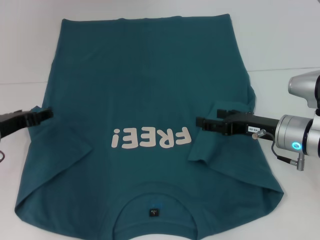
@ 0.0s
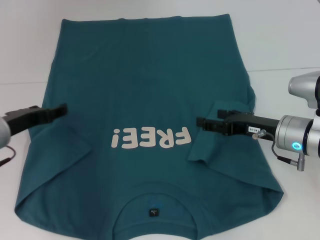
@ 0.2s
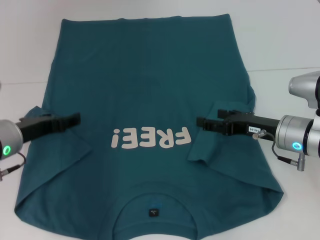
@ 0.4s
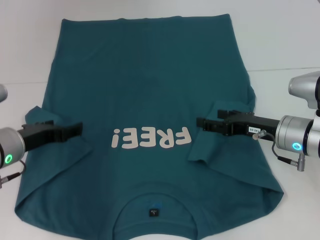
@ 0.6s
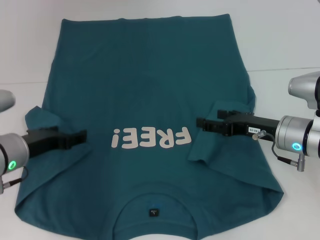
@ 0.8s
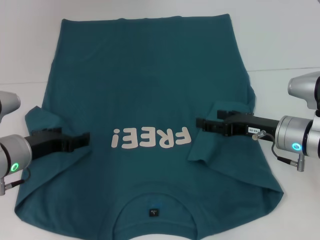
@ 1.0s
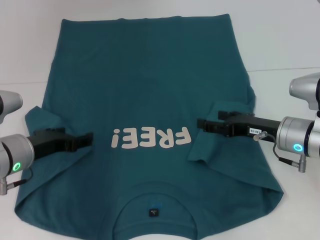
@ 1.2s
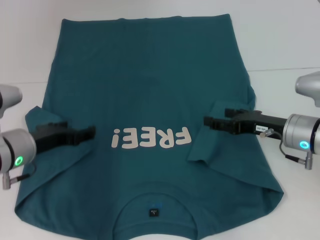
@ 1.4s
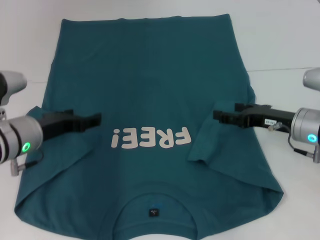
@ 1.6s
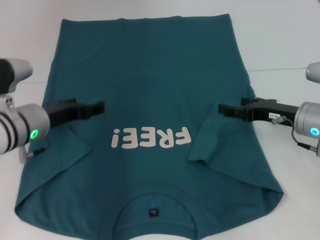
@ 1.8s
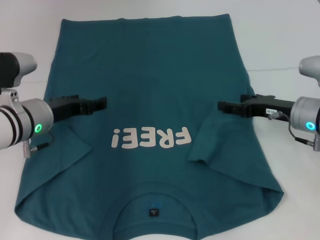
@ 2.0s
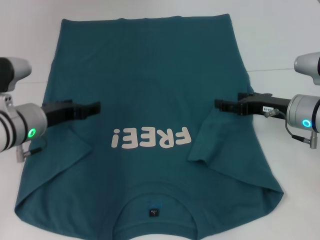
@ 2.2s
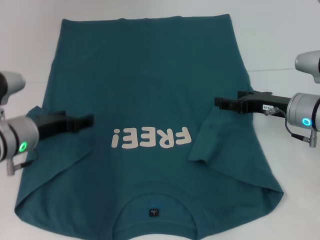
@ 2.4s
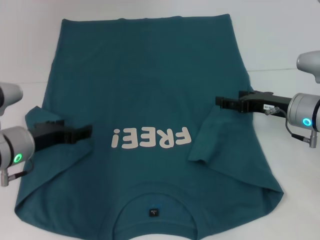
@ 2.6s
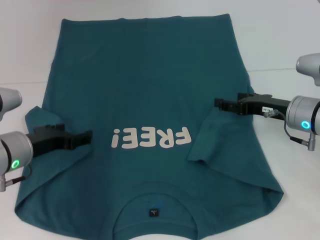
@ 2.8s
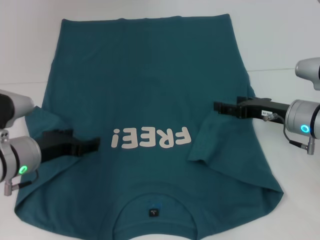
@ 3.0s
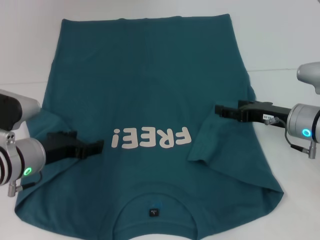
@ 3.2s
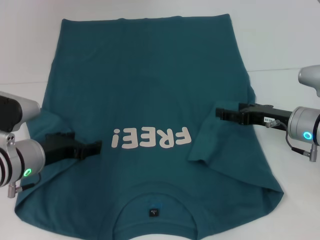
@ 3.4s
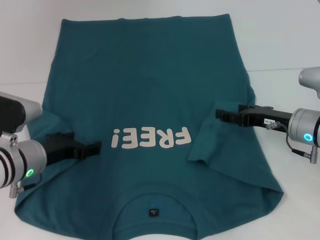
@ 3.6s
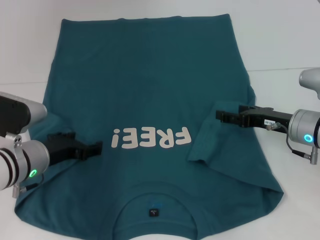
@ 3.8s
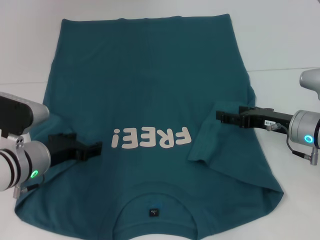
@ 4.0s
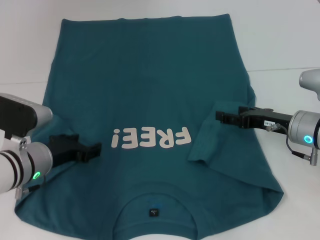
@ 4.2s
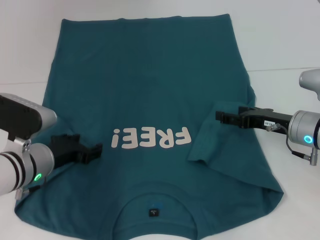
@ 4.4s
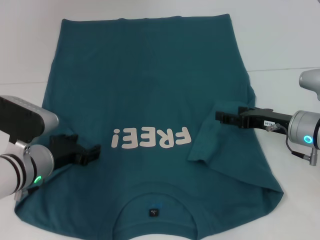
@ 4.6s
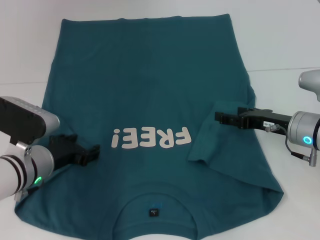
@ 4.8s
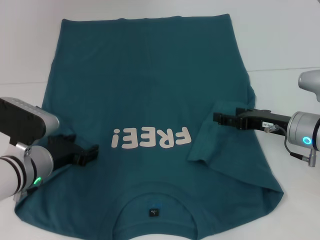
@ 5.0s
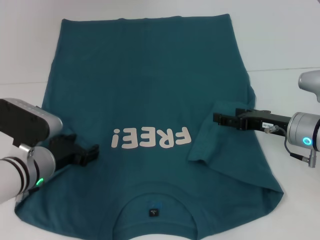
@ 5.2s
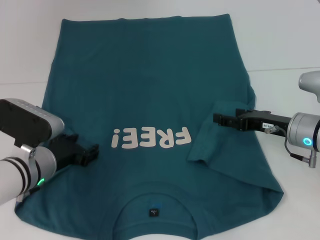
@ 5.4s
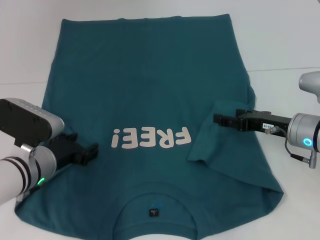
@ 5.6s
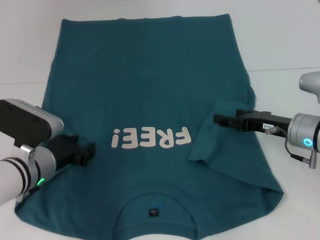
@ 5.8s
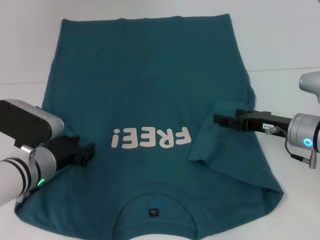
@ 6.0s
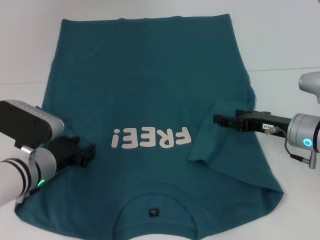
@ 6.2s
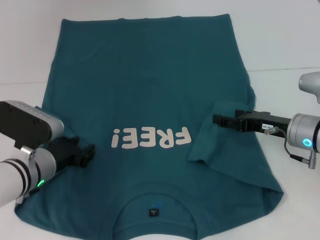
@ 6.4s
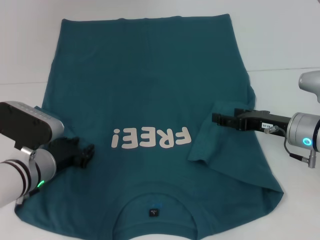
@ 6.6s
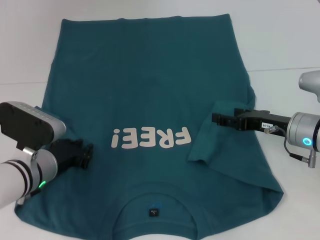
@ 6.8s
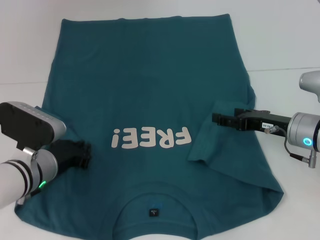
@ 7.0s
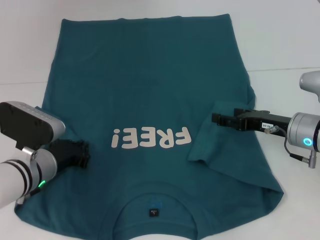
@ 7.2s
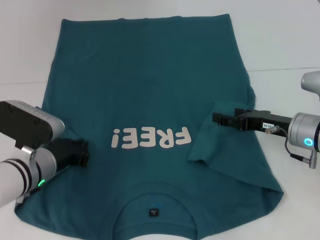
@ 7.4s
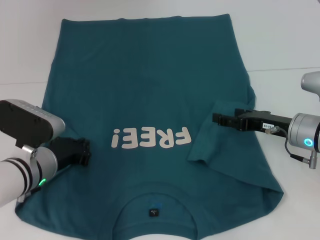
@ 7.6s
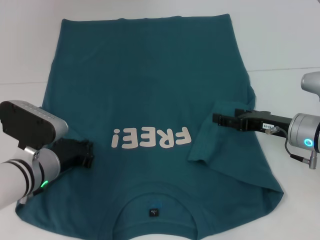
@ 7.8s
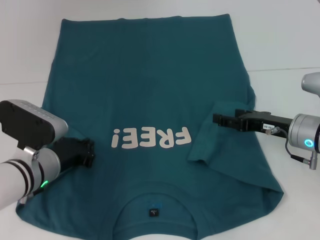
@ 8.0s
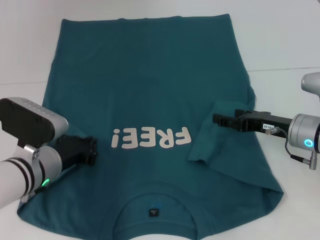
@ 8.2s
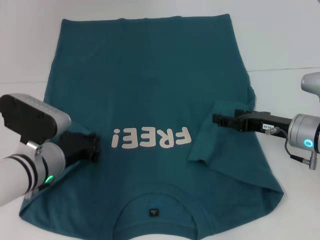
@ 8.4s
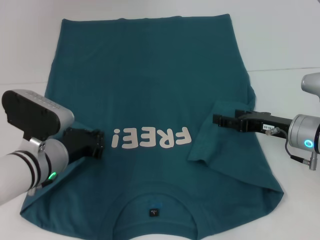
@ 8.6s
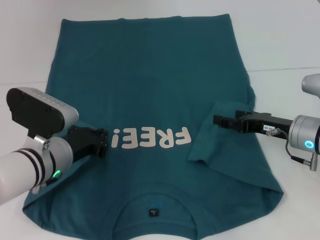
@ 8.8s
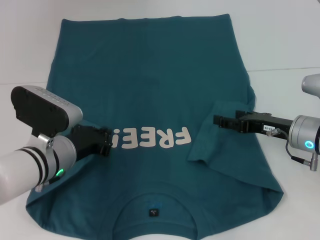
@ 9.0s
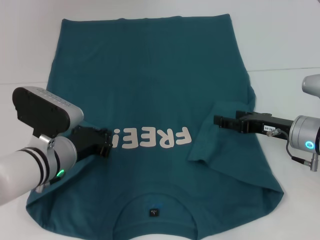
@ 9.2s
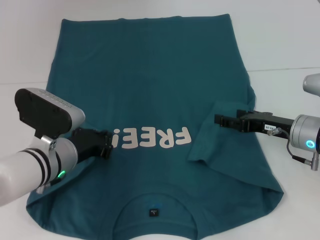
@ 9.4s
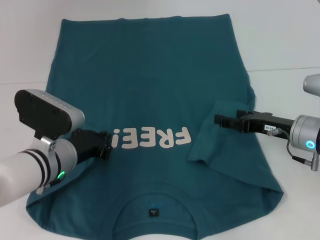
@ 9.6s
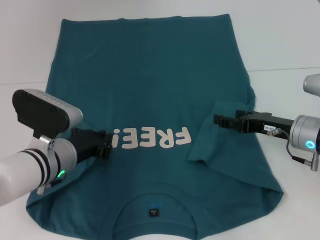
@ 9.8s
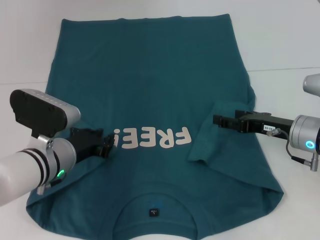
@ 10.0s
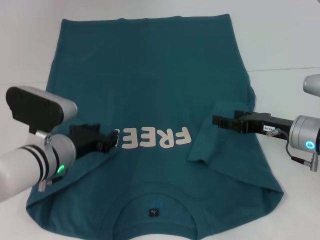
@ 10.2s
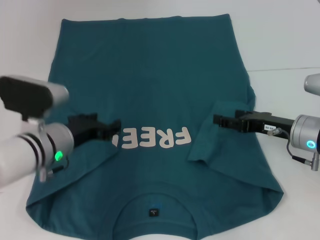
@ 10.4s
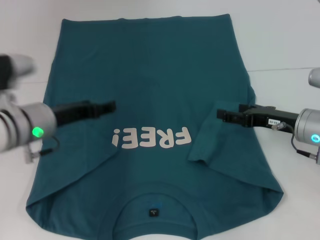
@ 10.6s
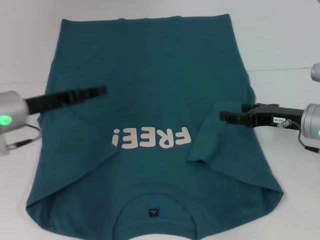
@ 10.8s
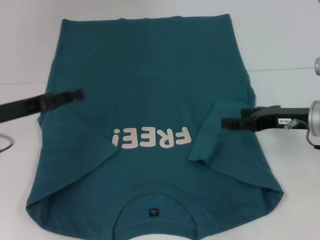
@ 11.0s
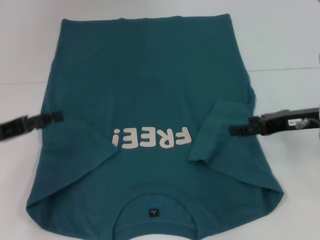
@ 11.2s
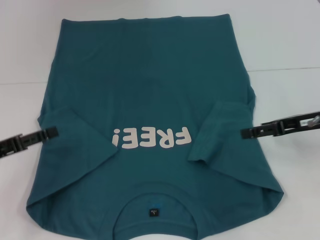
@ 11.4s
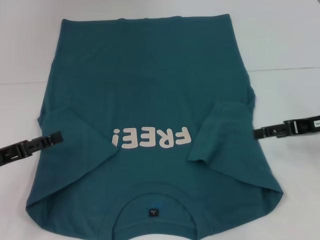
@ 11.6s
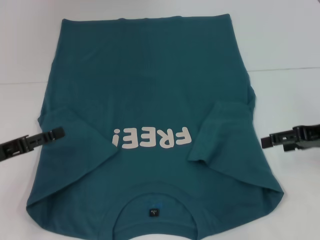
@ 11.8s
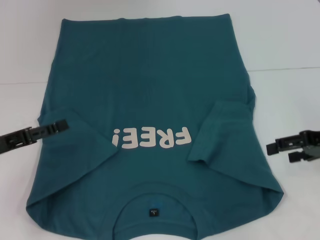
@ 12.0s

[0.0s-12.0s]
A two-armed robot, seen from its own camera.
0.0s to 1.6s: The left gripper heads to the right, covering roughly 5 cm.
1.6s to 4.4s: There are only small adjustments of the grippers.
4.4s to 6.0s: The grippers move only a little.
6.0s to 7.6s: The left gripper closes.
7.6s to 9.0s: The grippers stay close to where they were, moving slightly.
9.0s to 10.4s: The left gripper opens its fingers.
10.4s to 12.0s: The left gripper heads to the left, covering roughly 15 cm. The right gripper shifts roughly 10 cm upward and to the right.

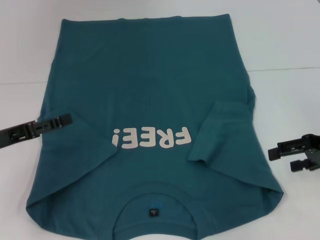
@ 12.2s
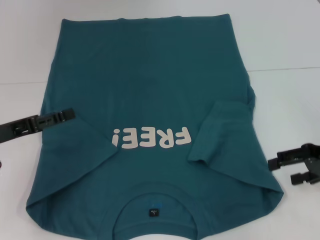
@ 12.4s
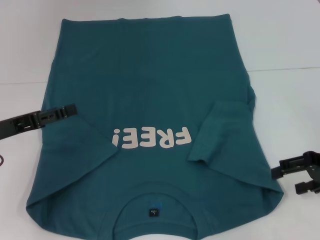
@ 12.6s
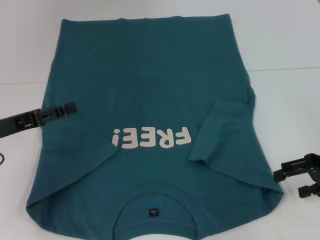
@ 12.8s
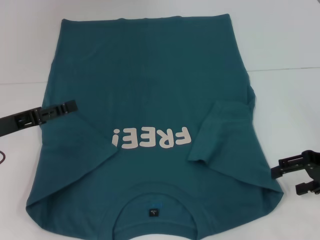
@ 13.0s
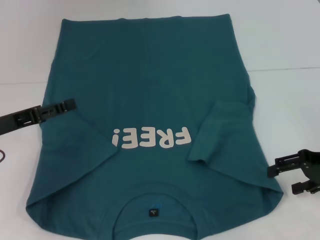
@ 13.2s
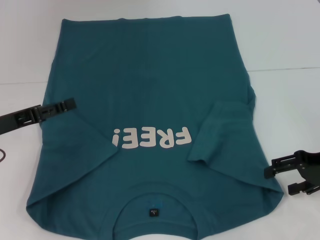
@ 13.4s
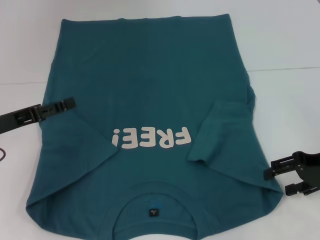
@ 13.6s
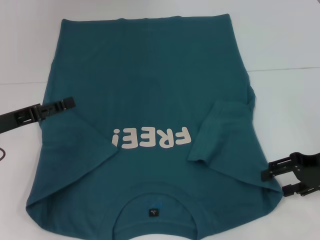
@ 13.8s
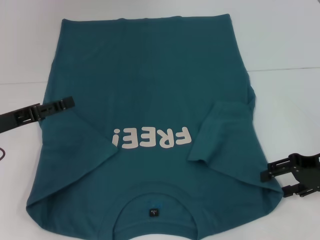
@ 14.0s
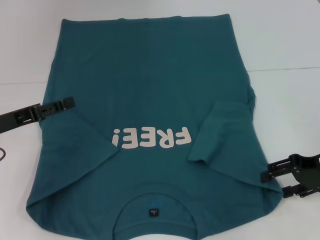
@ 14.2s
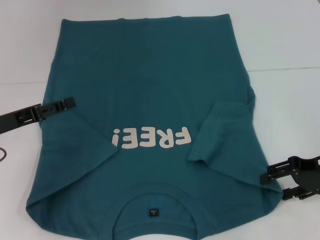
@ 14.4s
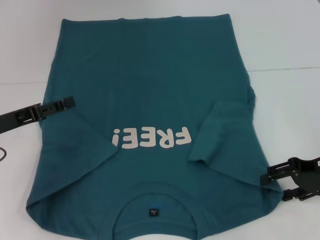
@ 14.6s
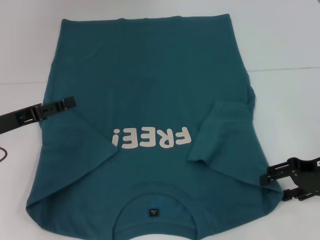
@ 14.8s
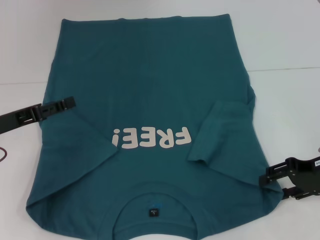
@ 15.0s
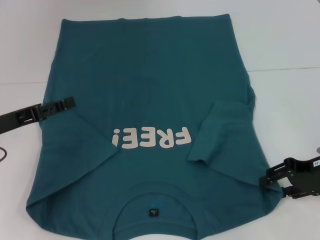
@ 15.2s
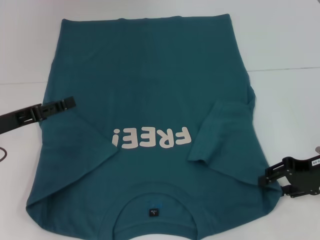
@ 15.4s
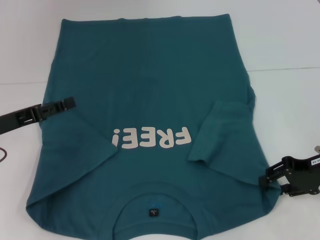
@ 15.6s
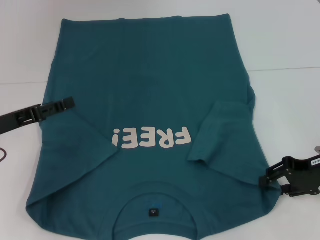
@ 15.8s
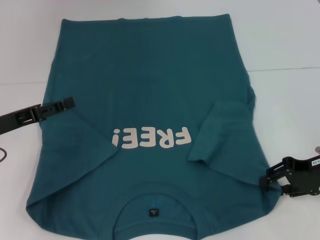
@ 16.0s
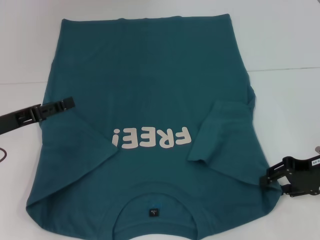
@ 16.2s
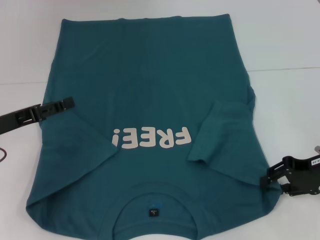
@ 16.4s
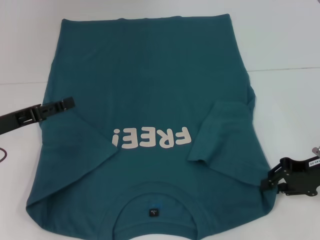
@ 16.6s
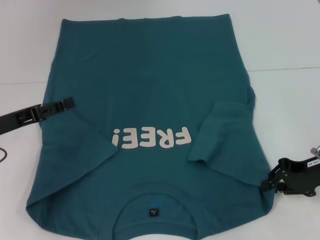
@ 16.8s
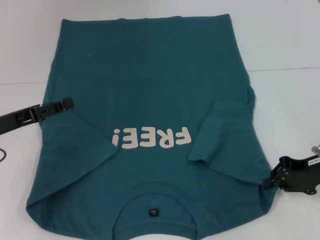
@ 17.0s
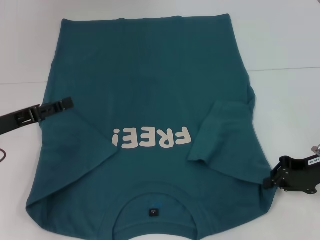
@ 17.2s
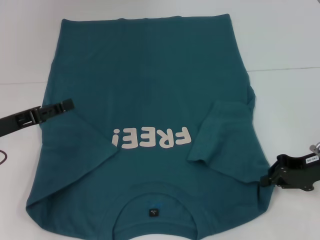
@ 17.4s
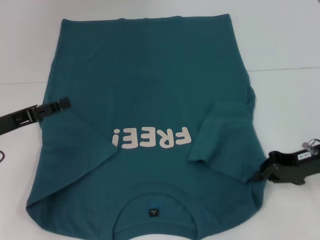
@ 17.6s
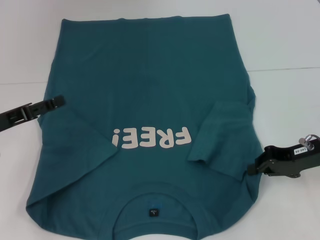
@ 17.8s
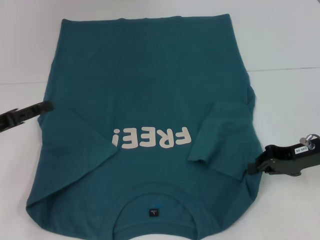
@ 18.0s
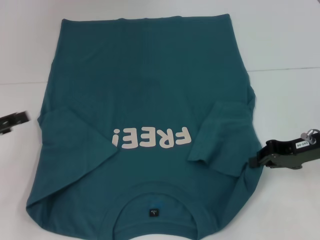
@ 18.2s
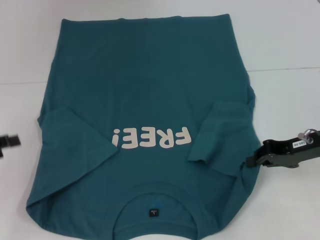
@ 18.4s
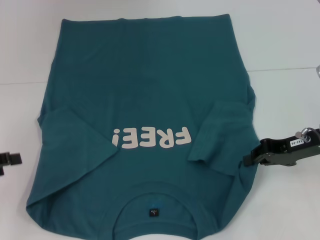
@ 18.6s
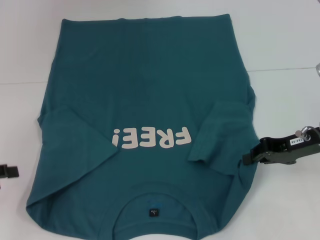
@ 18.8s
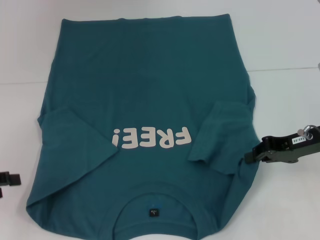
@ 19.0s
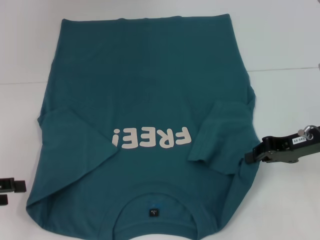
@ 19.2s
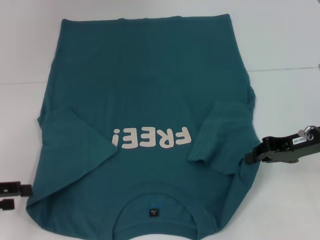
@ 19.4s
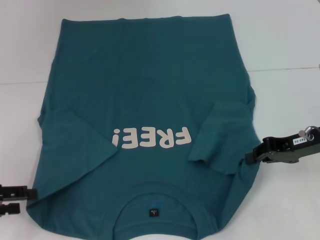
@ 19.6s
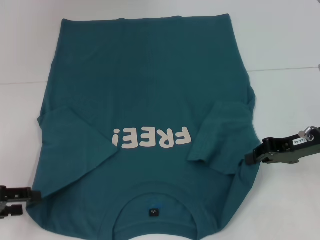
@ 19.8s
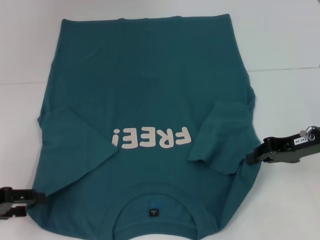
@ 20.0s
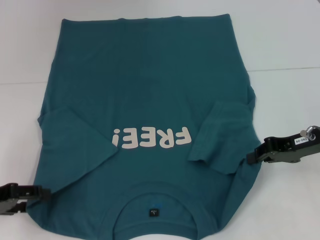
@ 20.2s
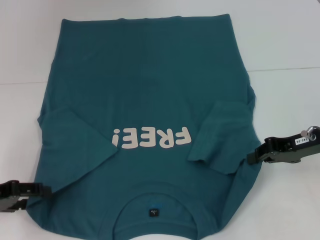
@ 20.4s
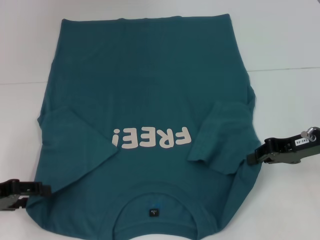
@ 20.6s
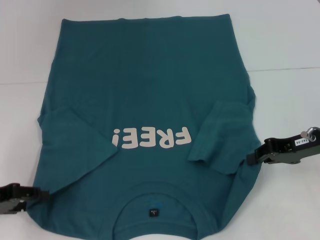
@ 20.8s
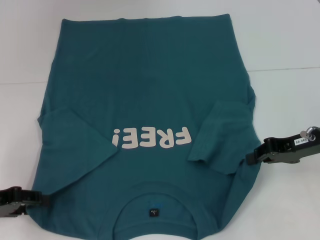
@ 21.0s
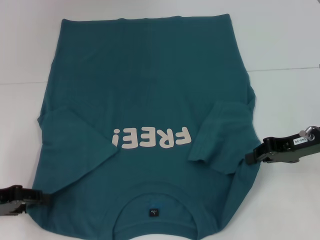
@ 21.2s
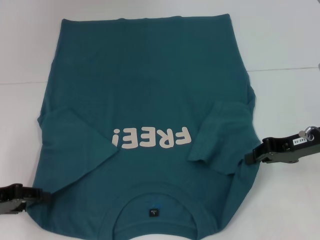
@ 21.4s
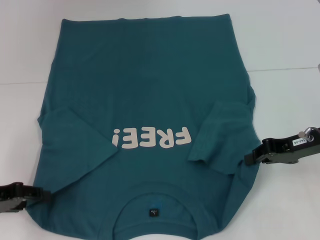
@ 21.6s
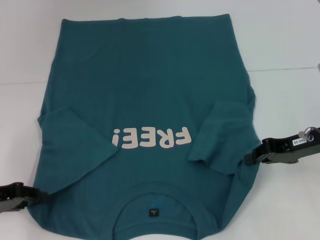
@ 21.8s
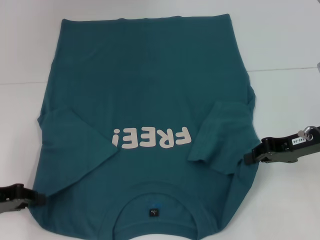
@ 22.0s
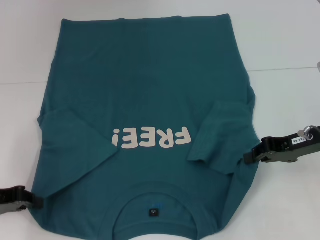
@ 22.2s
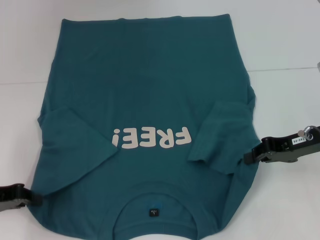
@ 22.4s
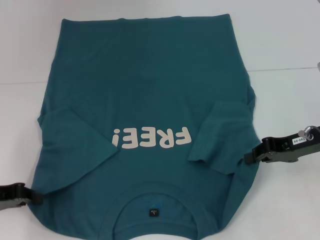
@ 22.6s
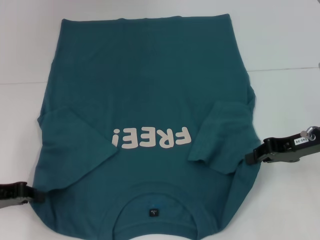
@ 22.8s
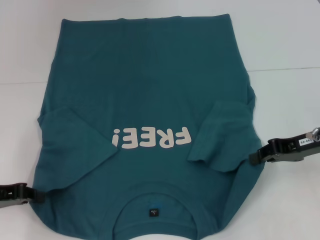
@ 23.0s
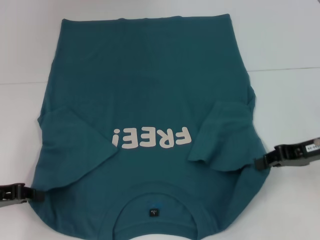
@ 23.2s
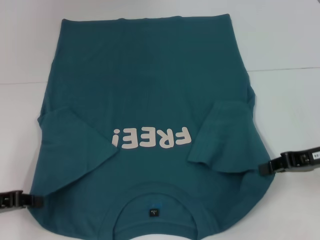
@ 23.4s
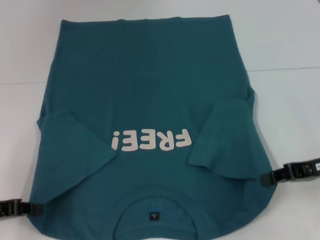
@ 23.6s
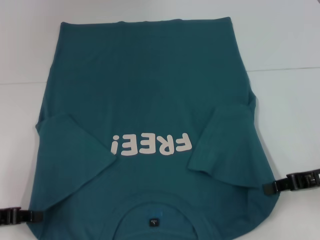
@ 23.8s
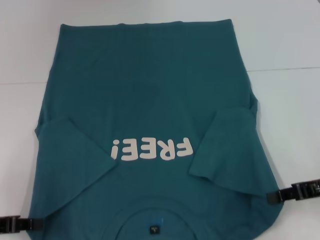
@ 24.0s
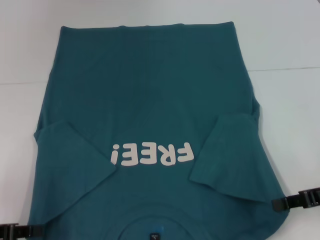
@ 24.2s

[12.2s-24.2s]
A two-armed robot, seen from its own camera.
Step, 12.2s to 16.8s: Grab the bottom right corner with your right hand.
Step, 17.0s to 23.4s: Grab the bottom left corner with your left hand.
12.2s to 15.2s: The grippers make only small movements.
15.2s to 16.6s: Both grippers stay put.
16.6s to 18.2s: The left gripper moves to the left, some 5 cm.
21.2s to 22.6s: The left gripper closes up.
22.6s to 24.2s: Both grippers travel together backward, approximately 5 cm.
